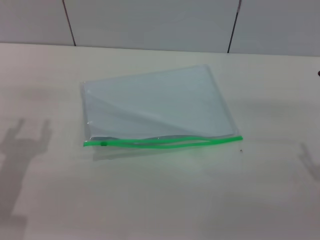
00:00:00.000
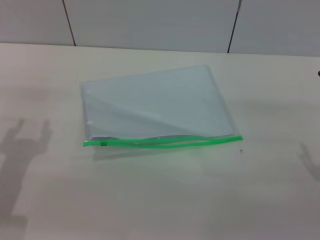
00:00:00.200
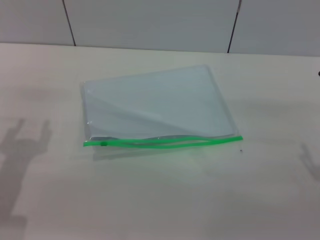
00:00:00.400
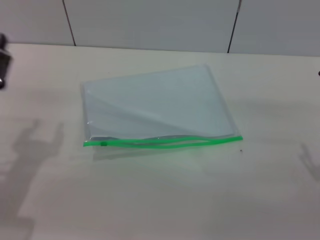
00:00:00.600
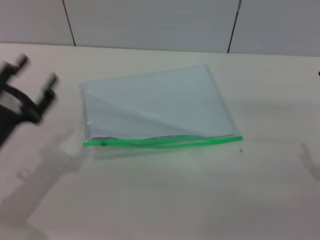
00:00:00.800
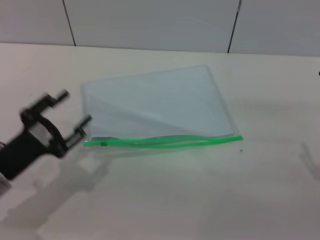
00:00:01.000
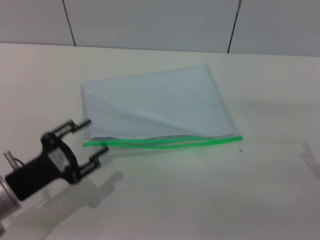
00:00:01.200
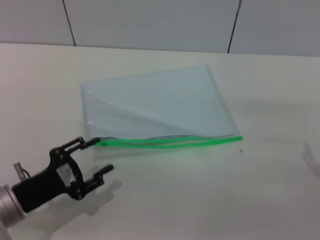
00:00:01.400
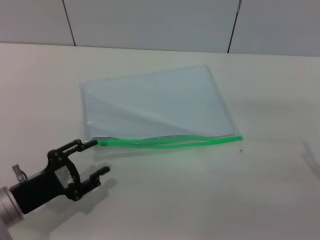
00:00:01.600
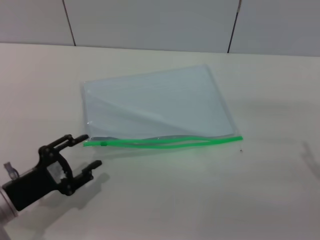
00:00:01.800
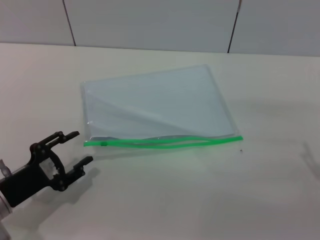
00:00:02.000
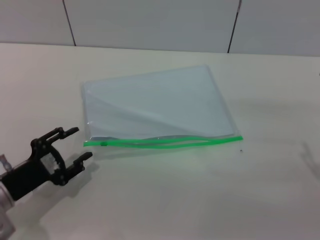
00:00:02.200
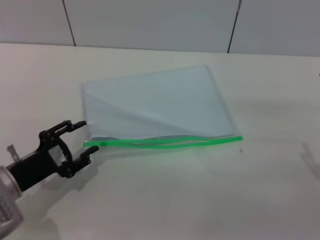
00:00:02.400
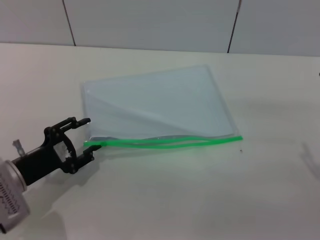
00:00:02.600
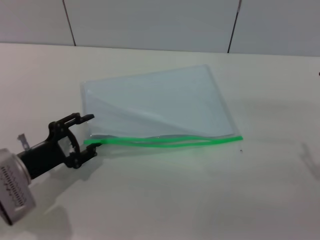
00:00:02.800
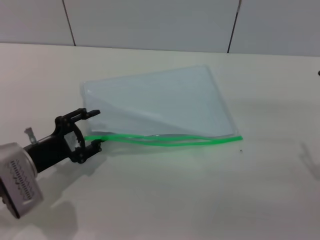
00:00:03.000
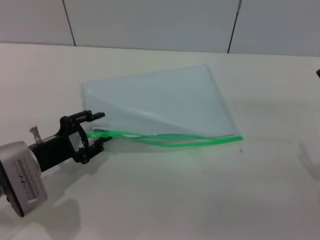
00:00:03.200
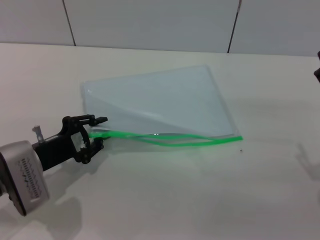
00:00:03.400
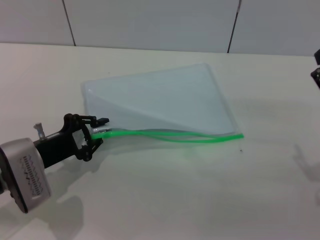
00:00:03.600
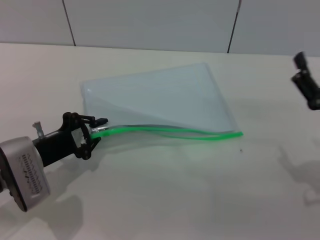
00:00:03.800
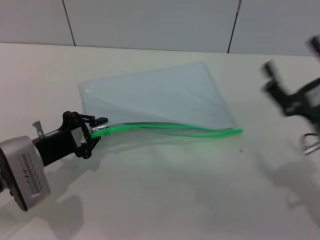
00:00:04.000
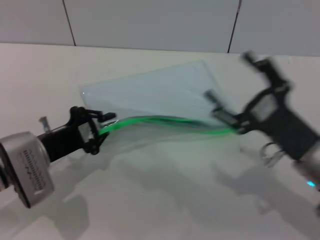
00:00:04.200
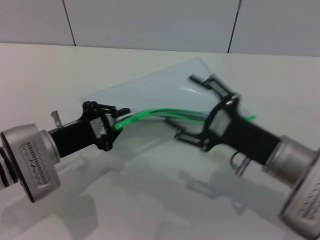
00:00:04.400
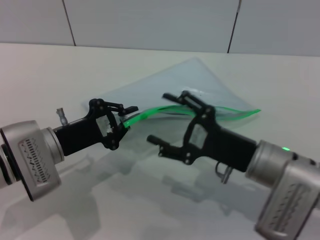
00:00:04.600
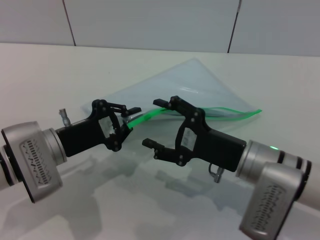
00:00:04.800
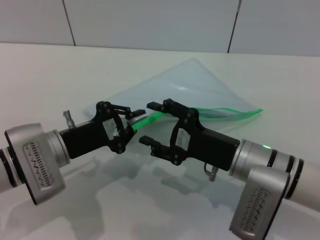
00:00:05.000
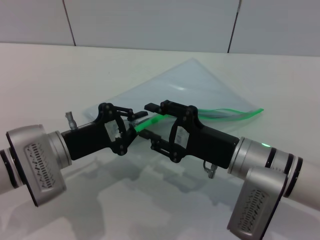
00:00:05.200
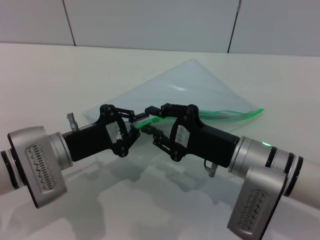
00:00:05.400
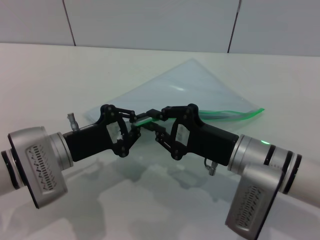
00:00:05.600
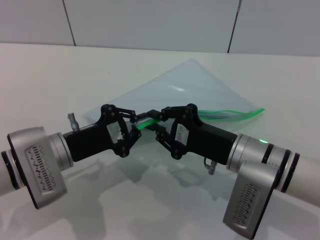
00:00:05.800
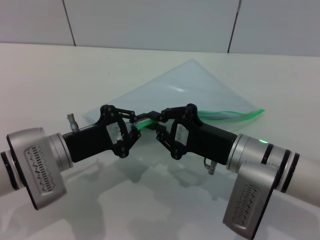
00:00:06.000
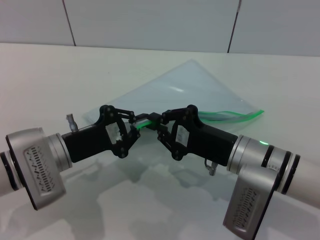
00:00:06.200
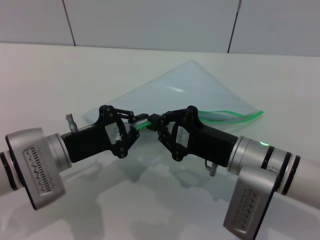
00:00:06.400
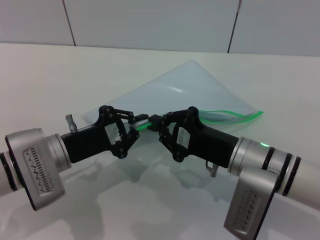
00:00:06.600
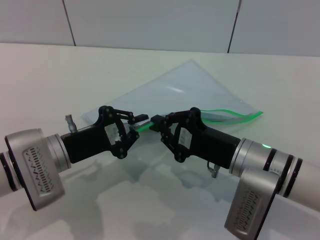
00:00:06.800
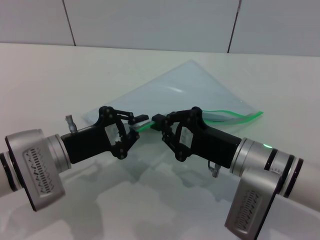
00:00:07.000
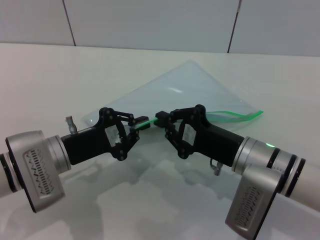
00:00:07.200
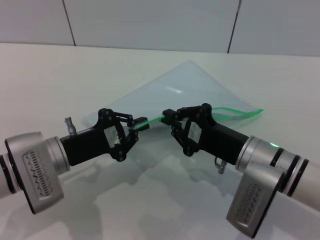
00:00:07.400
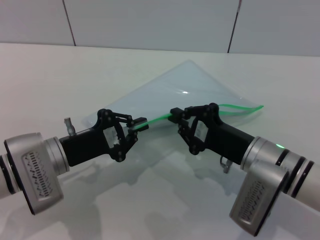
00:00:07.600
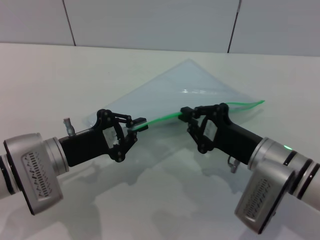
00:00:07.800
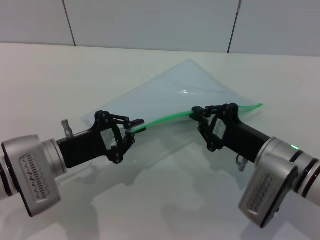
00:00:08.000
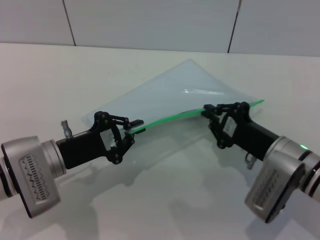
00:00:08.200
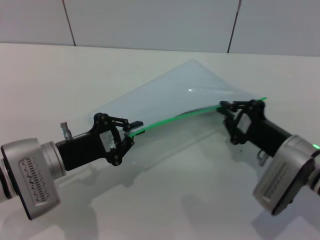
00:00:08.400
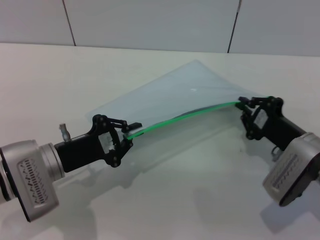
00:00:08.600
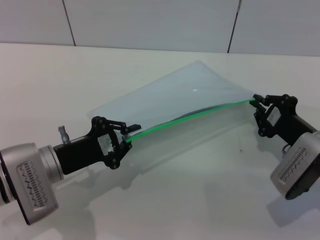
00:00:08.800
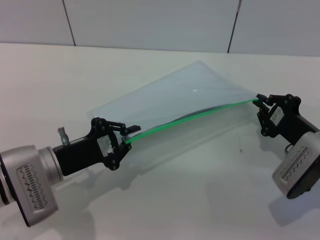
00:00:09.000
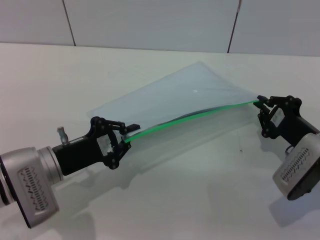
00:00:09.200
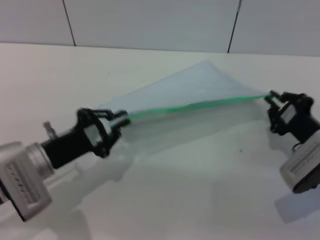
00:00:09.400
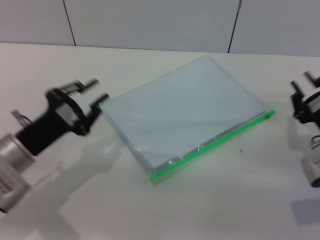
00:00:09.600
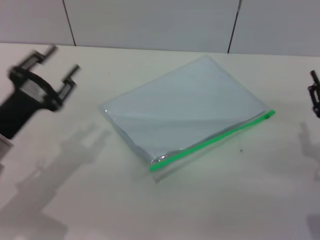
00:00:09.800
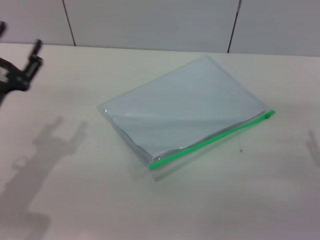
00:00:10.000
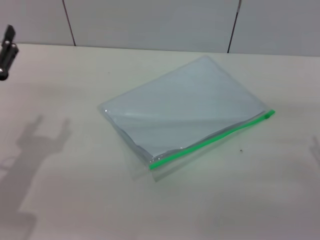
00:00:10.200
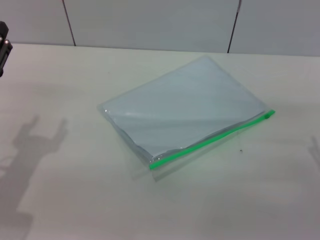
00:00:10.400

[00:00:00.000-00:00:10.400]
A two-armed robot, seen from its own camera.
Step, 00:00:00.000 to 00:00:04.000: Pick up the transparent plastic bag with the left gripper.
Step, 00:00:04.200 to 00:00:09.600: Pulling up the zipper on the transparent plastic bag with the right gripper to close it.
Step, 00:00:09.800 to 00:00:10.200: Place the transparent plastic bag.
00:00:00.000 to 00:00:01.400: The left gripper heads downward, covering some 5 cm.
00:00:01.400 to 00:00:03.000: The left gripper travels forward by some 5 cm.
00:00:03.000 to 00:00:04.400: The left gripper closes its fingers; the right gripper heads to the left, covering some 10 cm.
00:00:04.400 to 00:00:06.000: The right gripper closes its fingers.
00:00:06.000 to 00:00:07.400: The grippers make only small movements.
00:00:07.400 to 00:00:09.000: The right gripper shifts some 10 cm to the right.
00:00:09.000 to 00:00:10.400: The left gripper heads to the left, covering about 10 cm, and opens its fingers. Meanwhile the right gripper goes some 5 cm backward, and opens its fingers.
